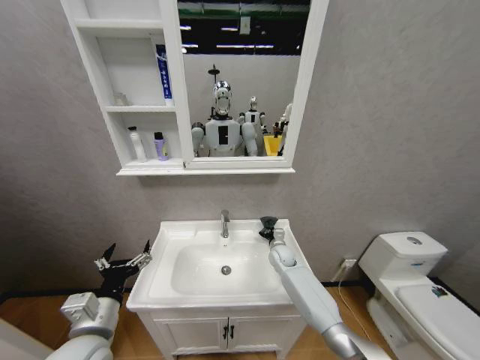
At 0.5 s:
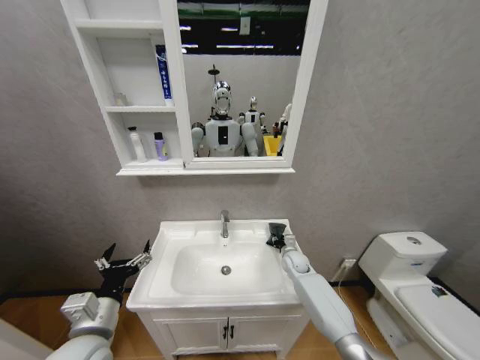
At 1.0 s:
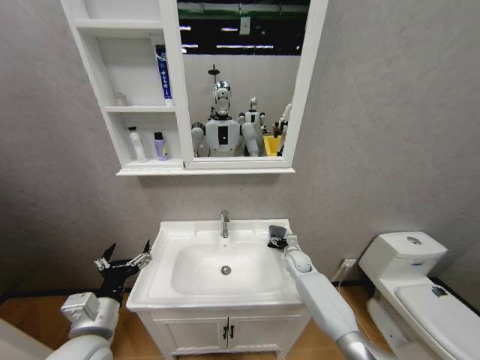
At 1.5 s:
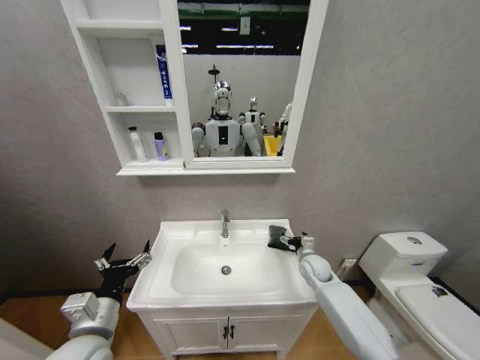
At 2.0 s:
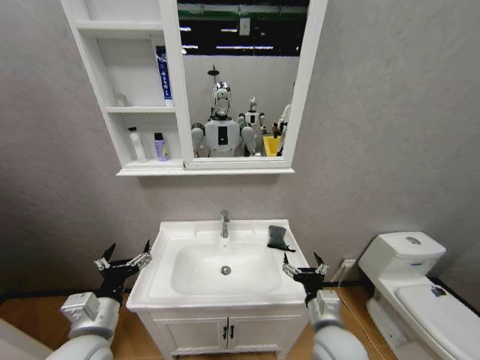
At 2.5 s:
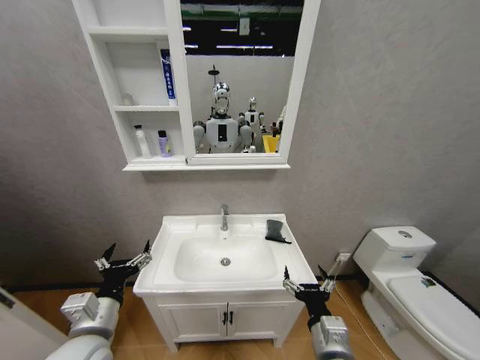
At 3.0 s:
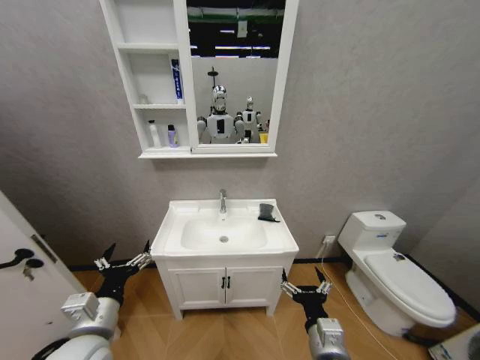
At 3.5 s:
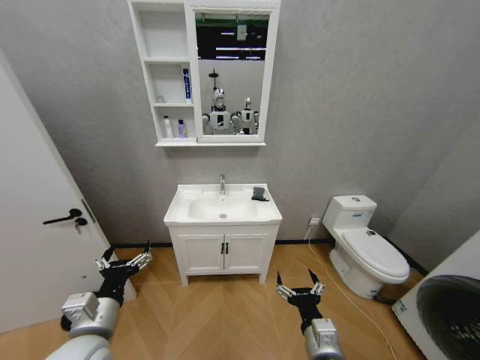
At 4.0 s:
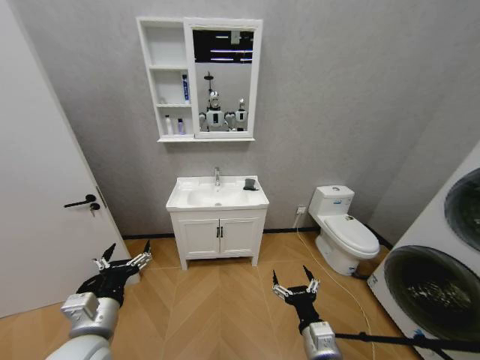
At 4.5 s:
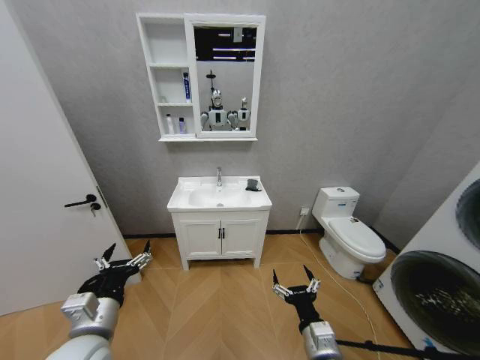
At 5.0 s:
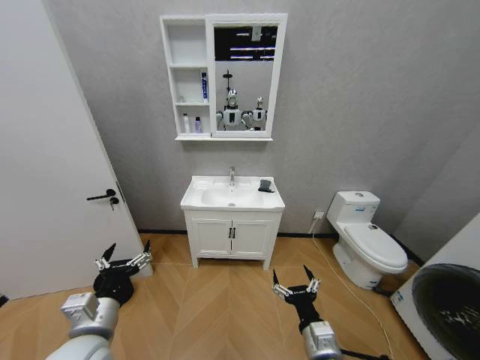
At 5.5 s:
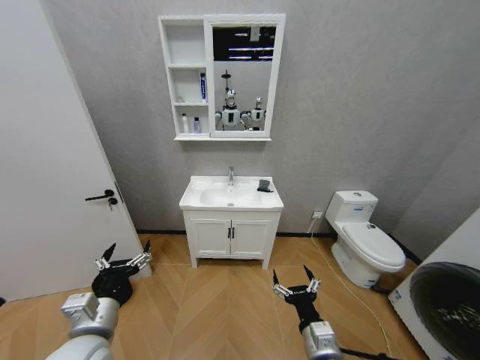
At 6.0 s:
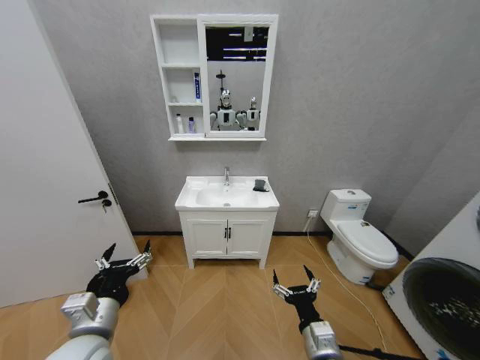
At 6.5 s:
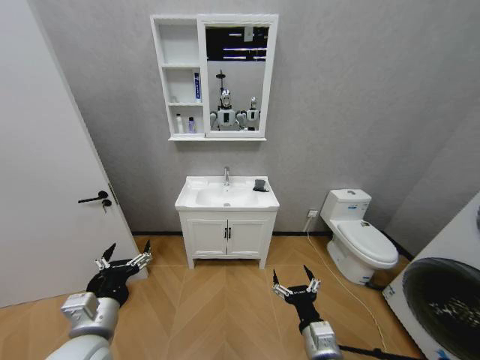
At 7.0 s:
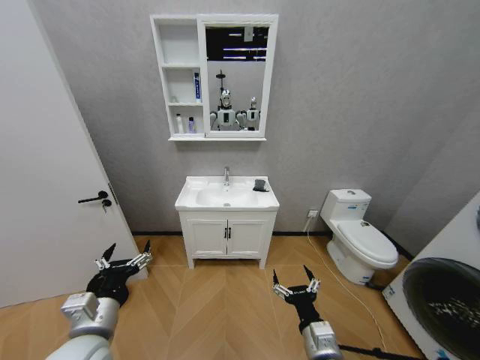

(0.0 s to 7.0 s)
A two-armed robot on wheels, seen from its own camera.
Task of the whole recording: Move facial cleanser and shampoo from washbasin to cabinet, then wipe washbasin with towel.
0.0 s - 2.0 s: The right gripper heads backward, covering roughly 30 cm, and opens.
2.0 s - 3.5 s: The right gripper moves backward, some 5 cm.
5.0 s - 7.0 s: Both grippers stay about where they are.

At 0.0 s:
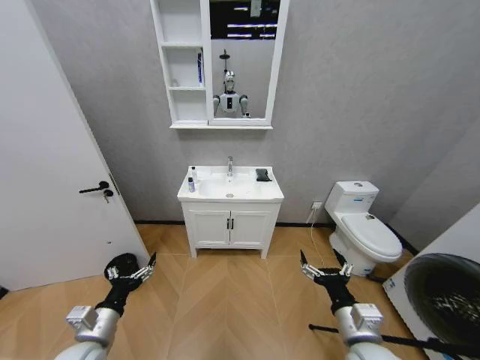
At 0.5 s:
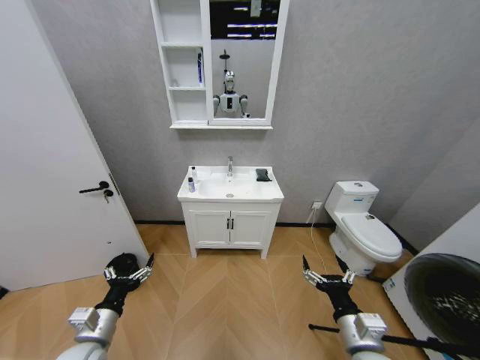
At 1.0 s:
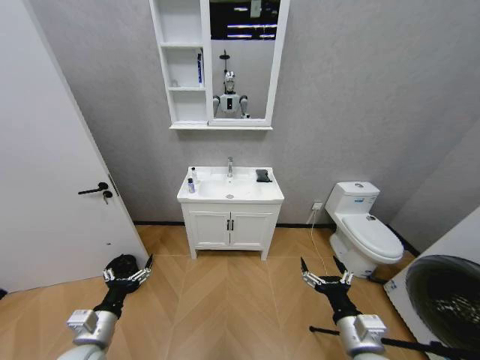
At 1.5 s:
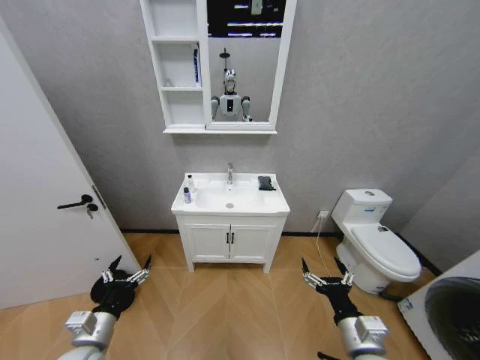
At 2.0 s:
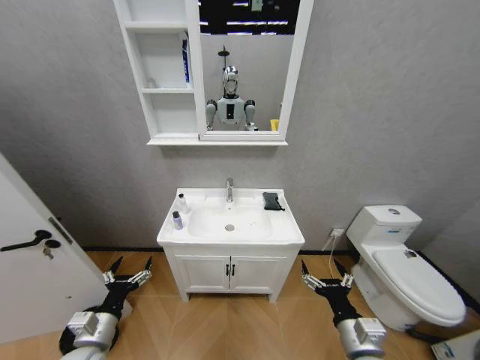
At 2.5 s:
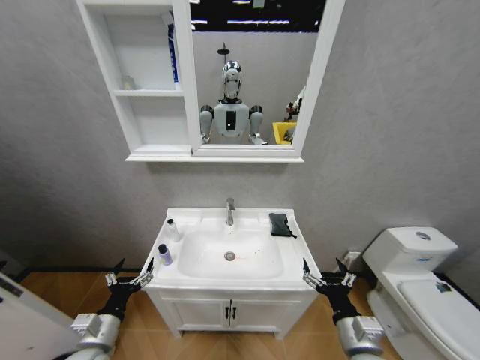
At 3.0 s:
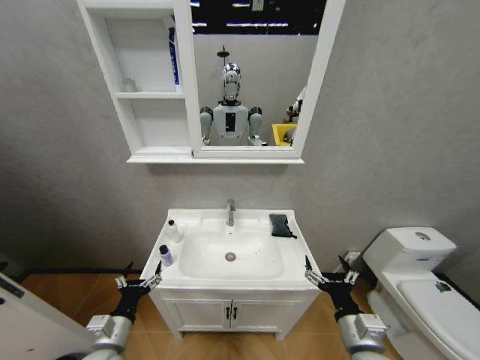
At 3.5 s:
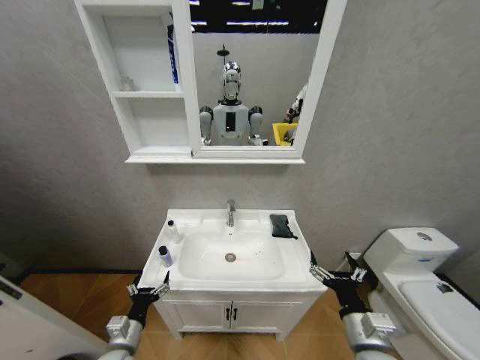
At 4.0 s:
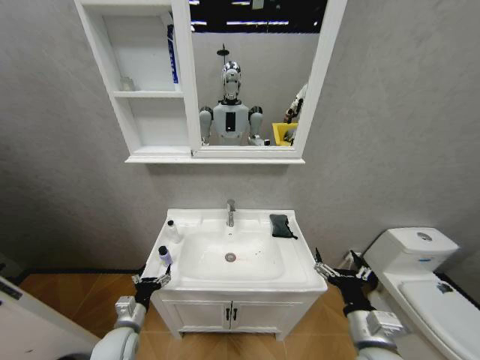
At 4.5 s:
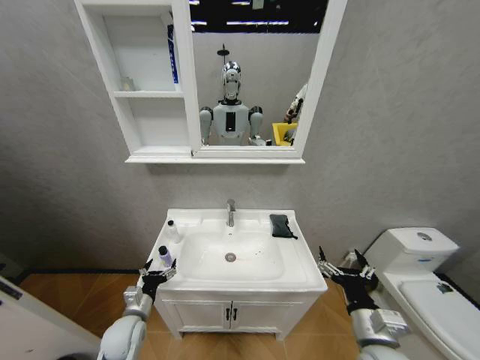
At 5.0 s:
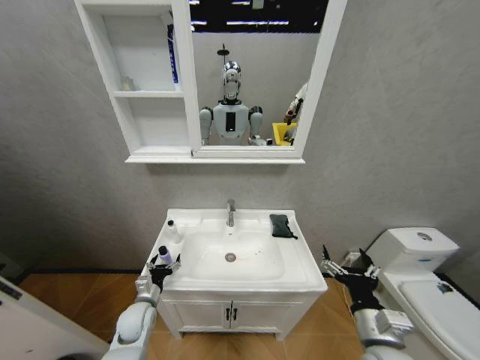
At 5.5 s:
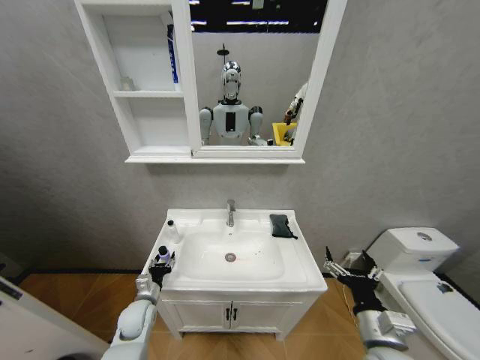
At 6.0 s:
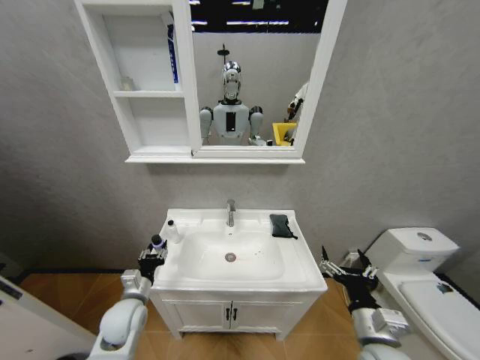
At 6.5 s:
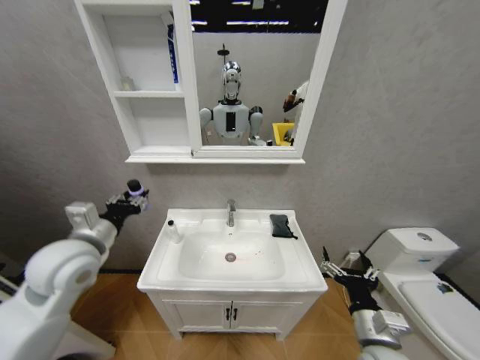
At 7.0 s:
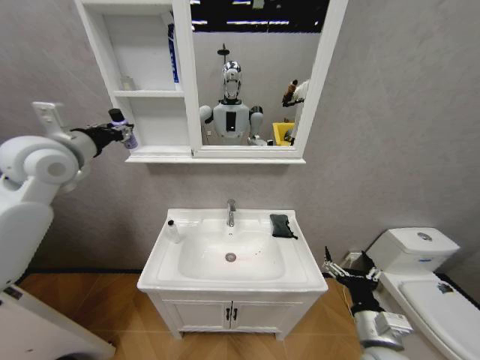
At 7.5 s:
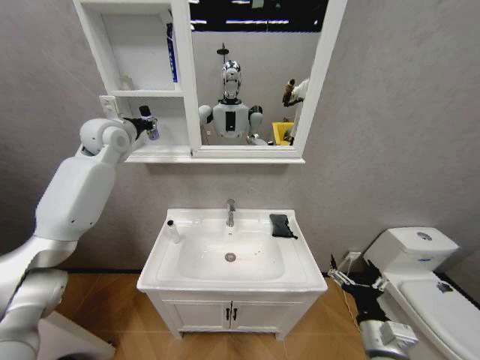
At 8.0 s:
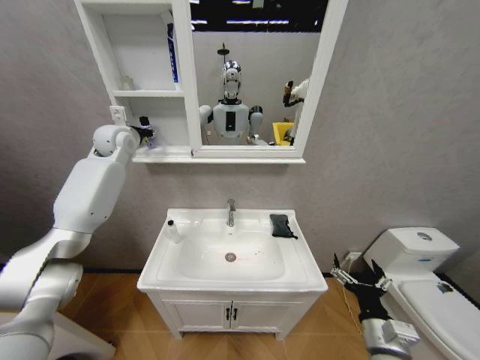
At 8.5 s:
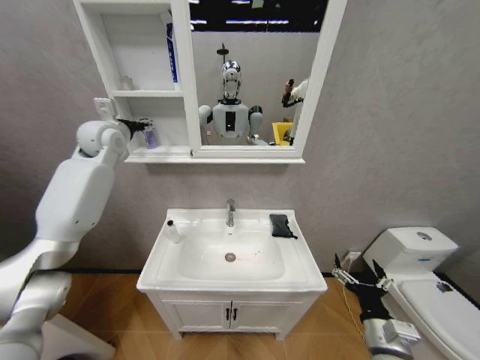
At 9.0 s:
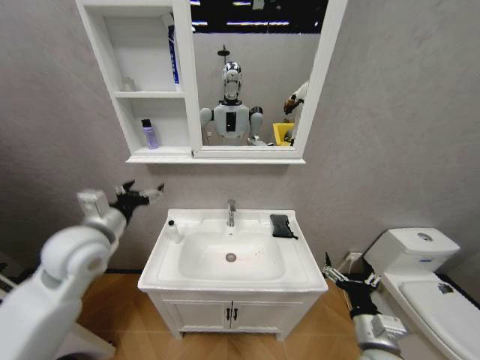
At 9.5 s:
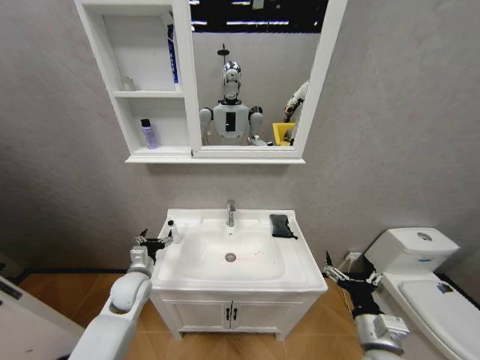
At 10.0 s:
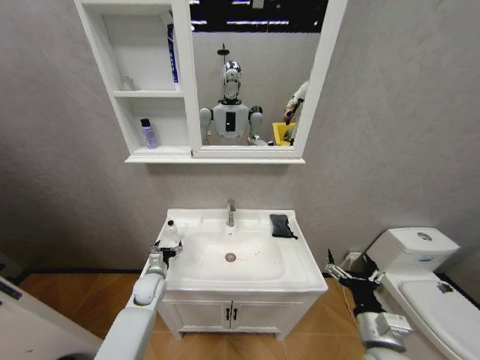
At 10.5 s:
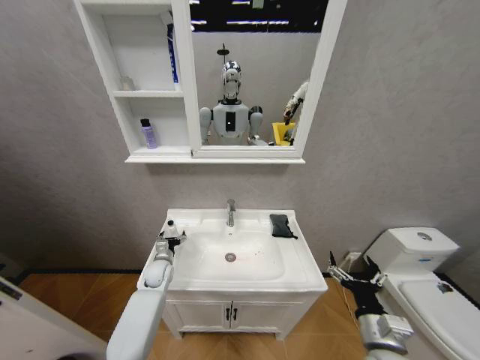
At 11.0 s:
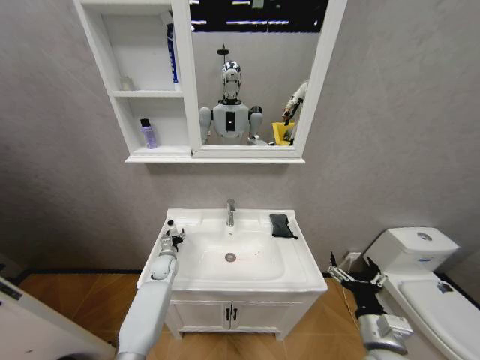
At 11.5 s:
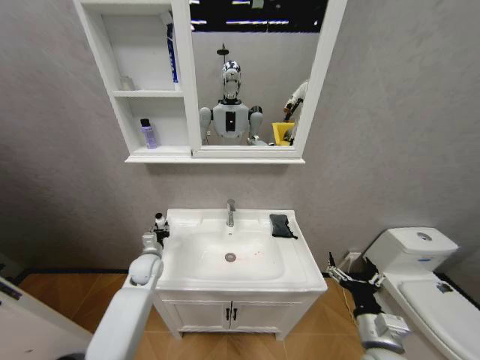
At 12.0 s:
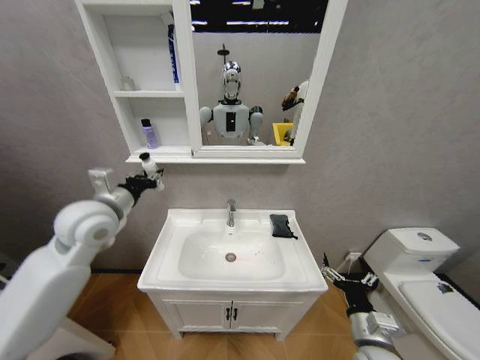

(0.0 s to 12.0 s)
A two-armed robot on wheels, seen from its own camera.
Task of the whole recording: Move facial cleanser and shampoo from washbasin to cabinet, then wipe washbasin with towel.
2.0 s - 4.0 s: The left gripper moves downward and forward, about 10 cm.
4.0 s - 6.0 s: The left gripper goes roughly 5 cm upward, and closes.
6.0 s - 8.0 s: The left gripper goes approximately 50 cm upward and forward.
8.0 s - 10.0 s: The left gripper moves downward, roughly 40 cm, and opens.
10.0 s - 12.0 s: The left gripper goes some 35 cm upward, and closes its fingers.

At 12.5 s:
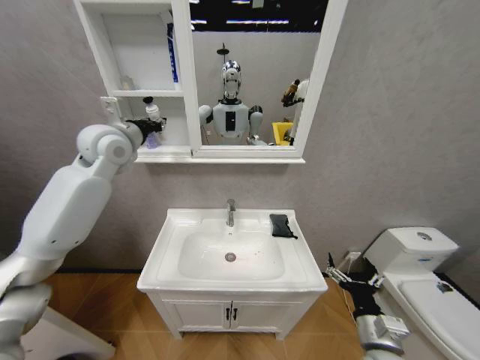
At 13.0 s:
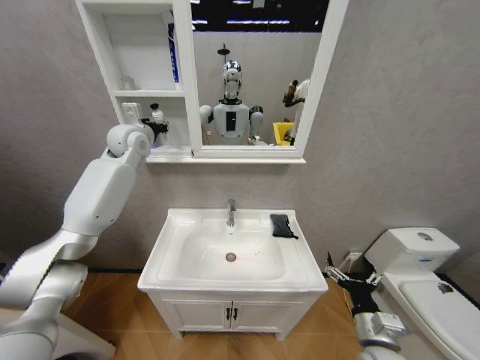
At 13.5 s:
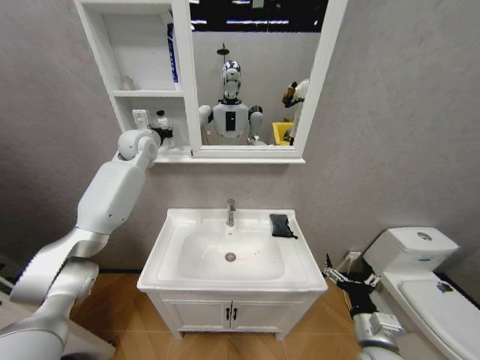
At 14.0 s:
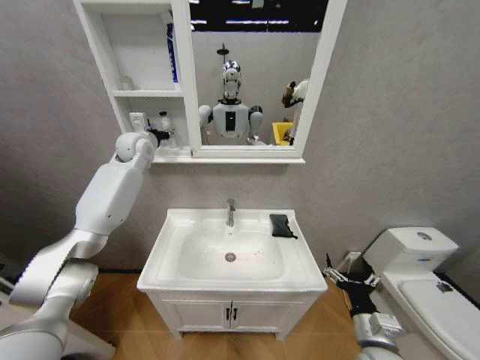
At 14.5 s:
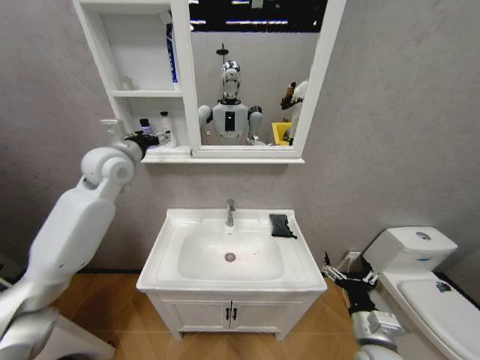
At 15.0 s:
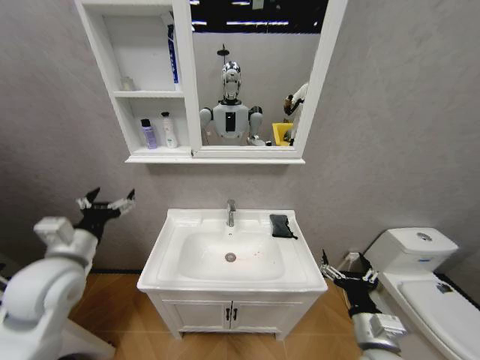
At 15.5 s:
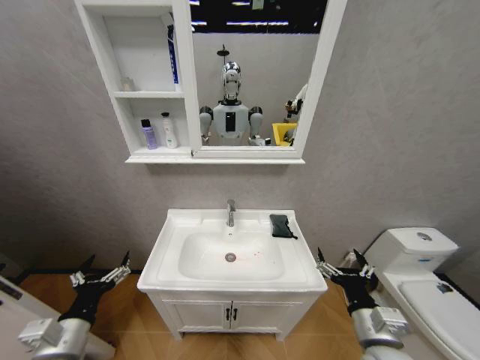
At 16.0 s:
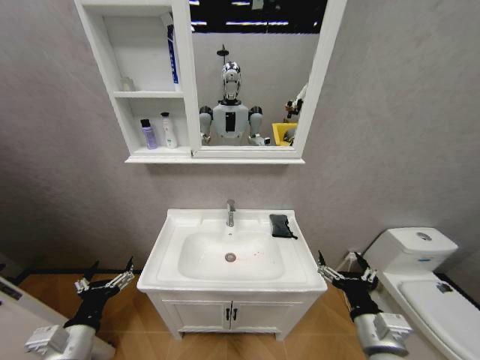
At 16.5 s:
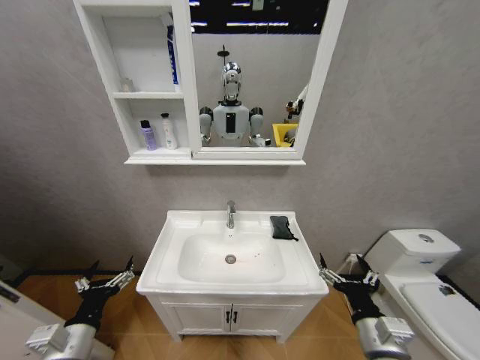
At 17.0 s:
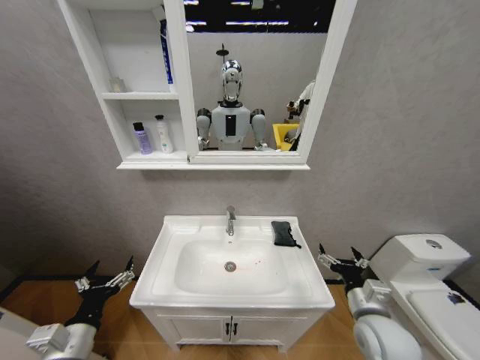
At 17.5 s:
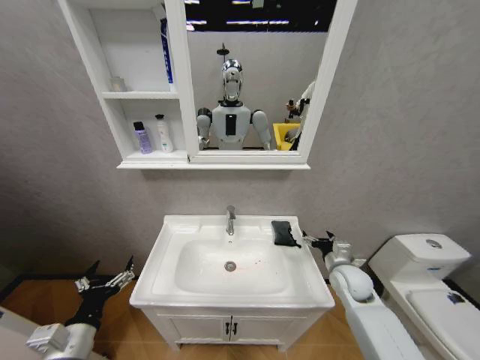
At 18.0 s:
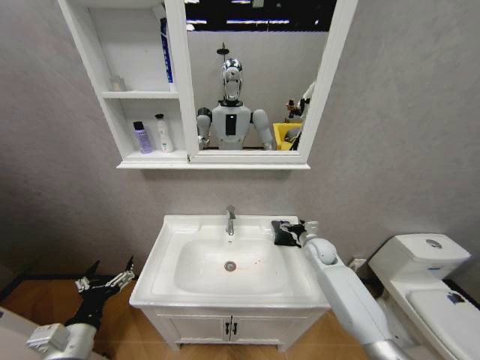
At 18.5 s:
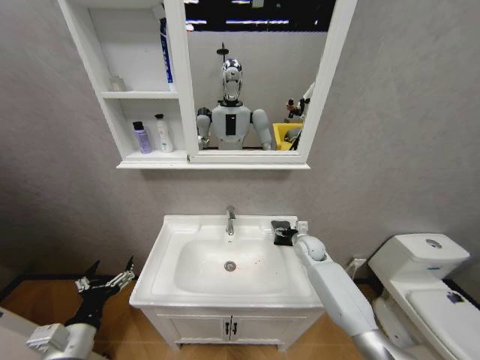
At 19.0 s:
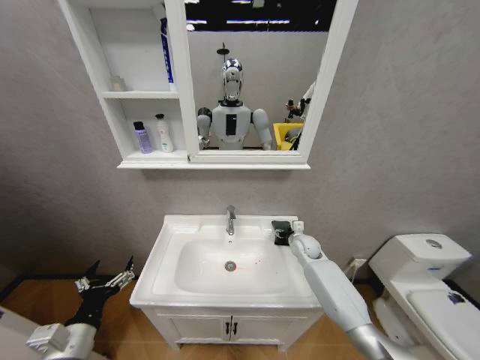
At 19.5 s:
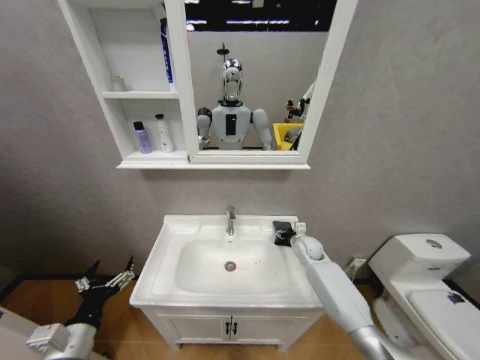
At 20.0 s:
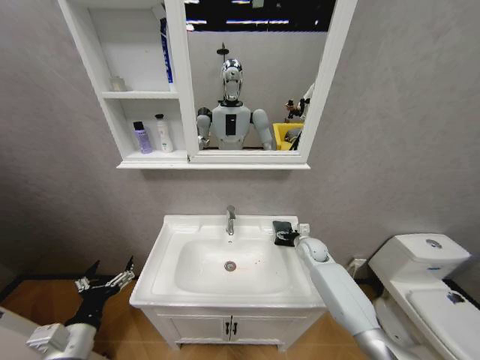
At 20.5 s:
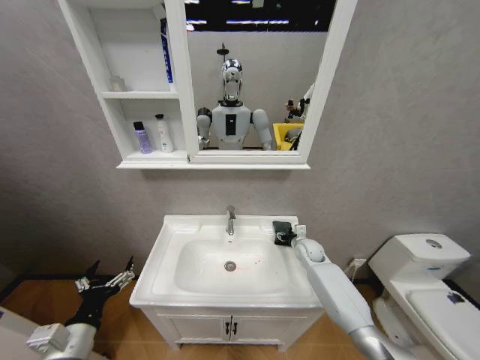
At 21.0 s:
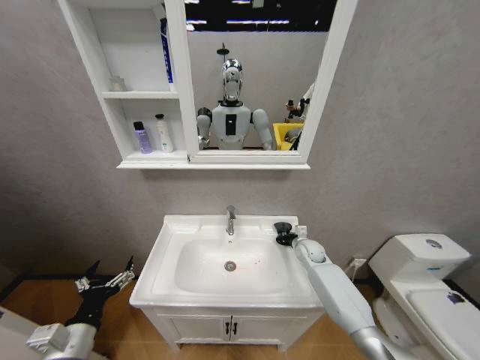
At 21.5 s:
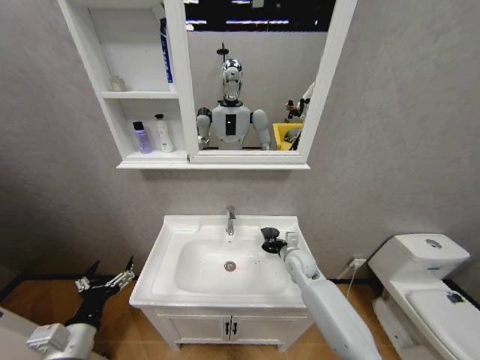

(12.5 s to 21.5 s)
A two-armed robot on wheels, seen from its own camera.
Task of the whole recording: Move facial cleanser and shampoo from washbasin to cabinet, then wipe washbasin with towel.
12.5 s - 14.5 s: The left gripper moves approximately 10 cm forward and comes back, and opens its fingers.
14.5 s - 17.0 s: The left gripper goes roughly 40 cm backward and downward.
17.0 s - 19.5 s: The right gripper heads forward, covering about 30 cm, and closes up.
19.5 s - 21.5 s: The right gripper is displaced backward and to the left by roughly 10 cm, and closes up.
